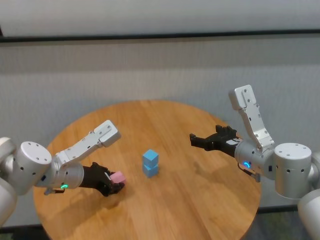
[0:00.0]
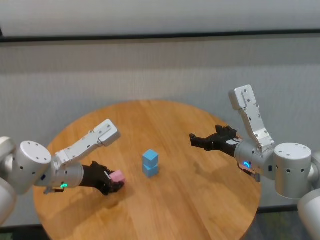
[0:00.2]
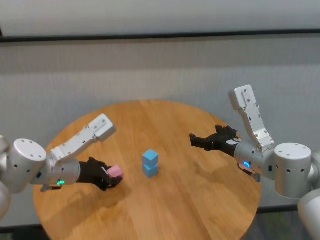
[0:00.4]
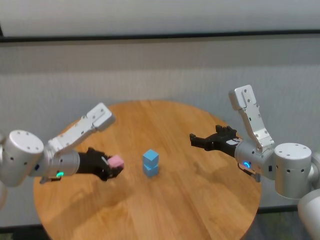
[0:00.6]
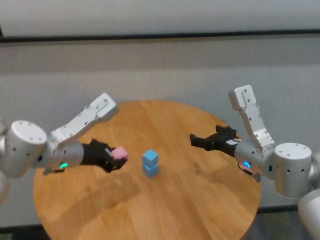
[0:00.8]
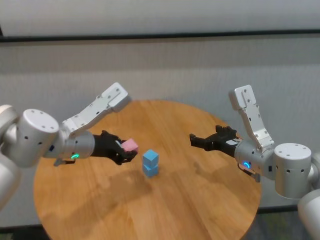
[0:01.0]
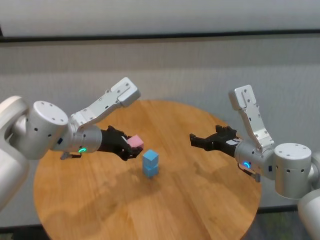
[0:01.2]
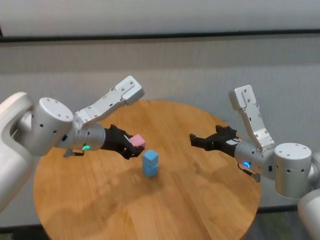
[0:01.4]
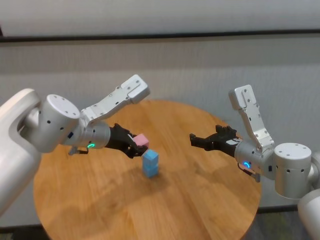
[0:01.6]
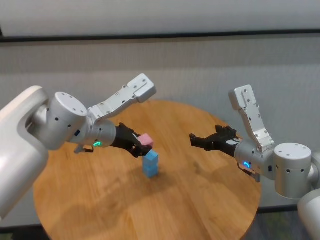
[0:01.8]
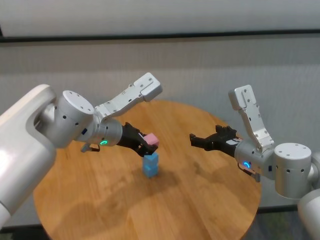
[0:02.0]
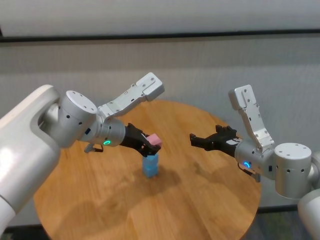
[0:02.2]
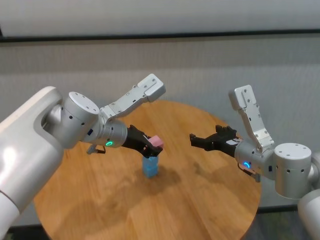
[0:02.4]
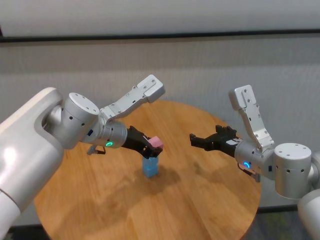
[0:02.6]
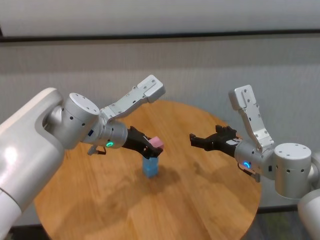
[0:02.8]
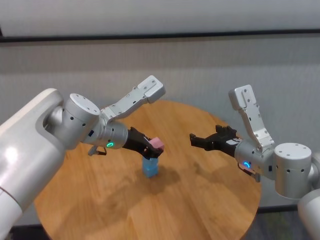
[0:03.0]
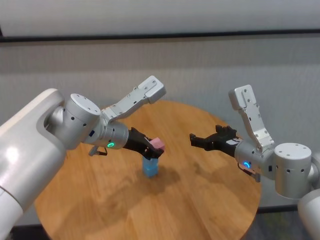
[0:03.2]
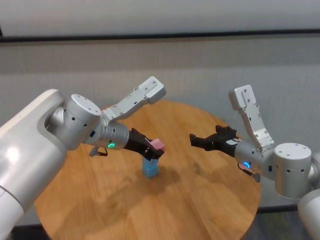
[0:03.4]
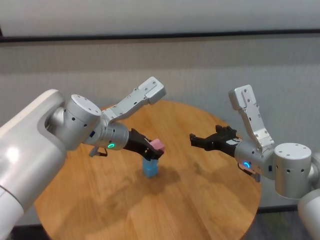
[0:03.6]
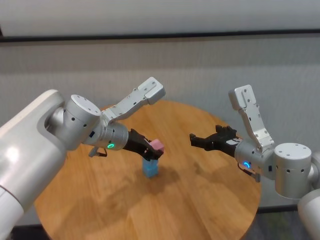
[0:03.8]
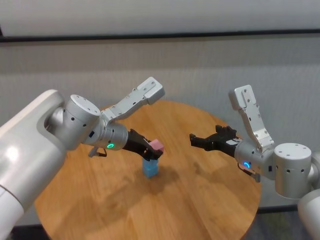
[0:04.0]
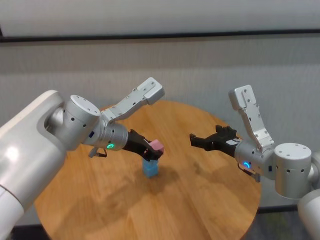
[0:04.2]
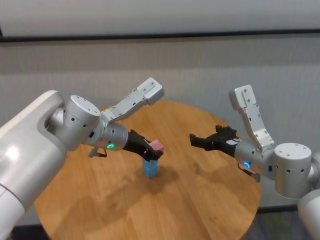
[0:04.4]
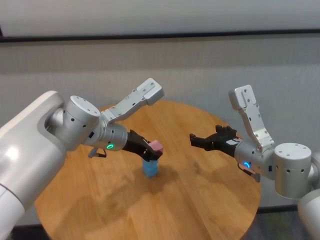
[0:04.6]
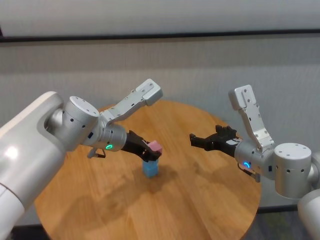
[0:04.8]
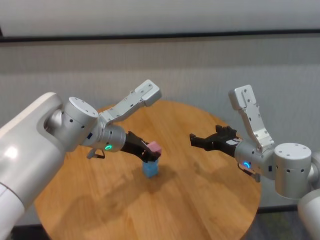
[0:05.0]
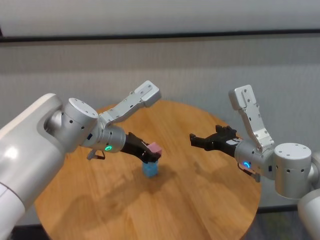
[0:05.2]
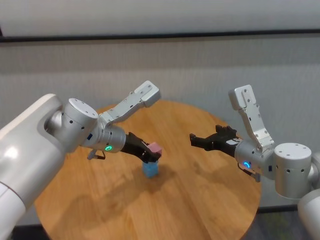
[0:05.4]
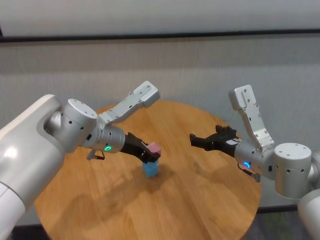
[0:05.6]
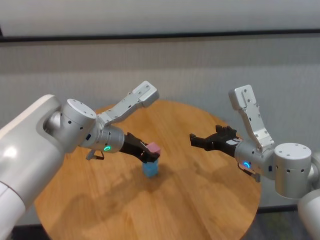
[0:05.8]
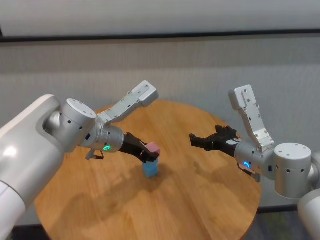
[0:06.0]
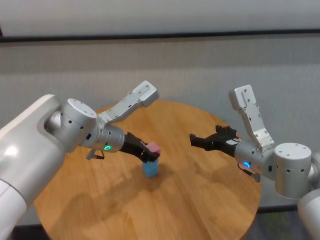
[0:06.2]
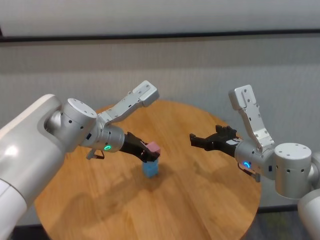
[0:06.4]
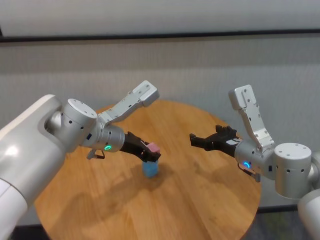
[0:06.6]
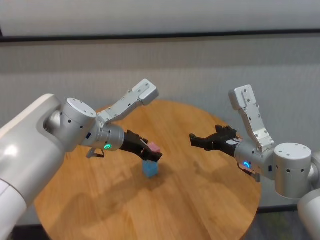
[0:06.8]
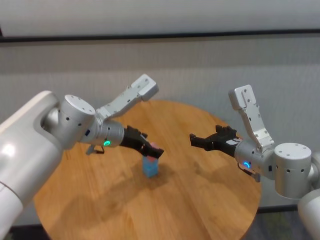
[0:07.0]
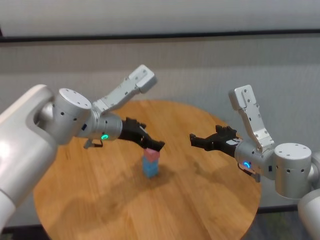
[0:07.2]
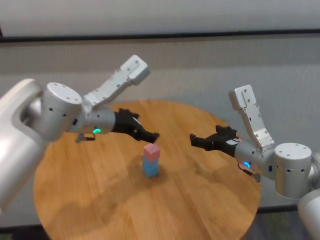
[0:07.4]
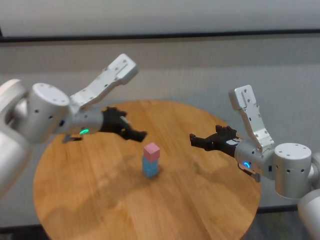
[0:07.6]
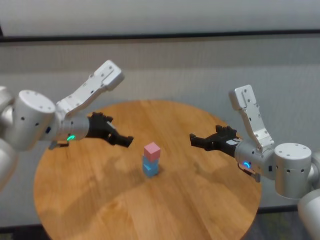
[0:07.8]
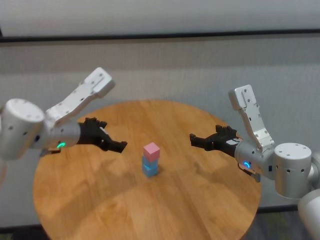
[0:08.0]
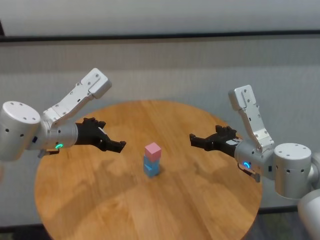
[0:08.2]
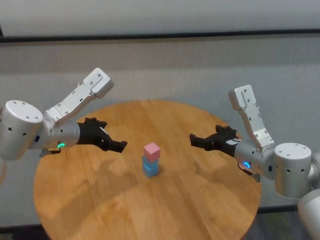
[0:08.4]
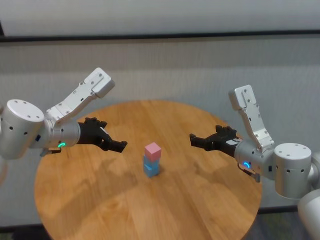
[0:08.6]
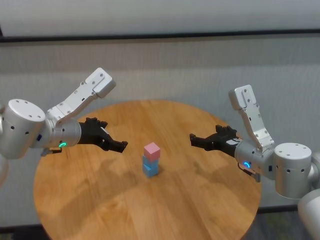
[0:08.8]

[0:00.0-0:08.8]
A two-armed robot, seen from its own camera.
Task of the whole recording: stack building blocks on the table.
Step, 0:00.0 to 0:06.8: Place the pink building block on the blue building blocks with left gripper.

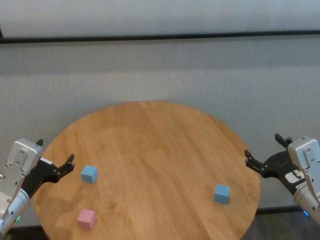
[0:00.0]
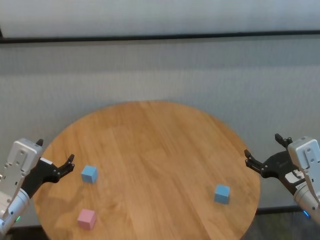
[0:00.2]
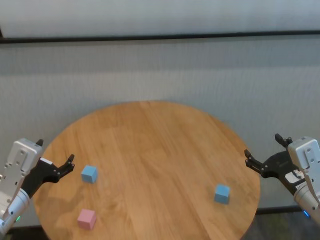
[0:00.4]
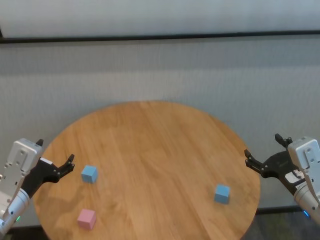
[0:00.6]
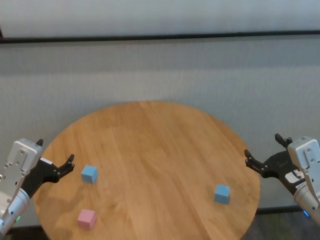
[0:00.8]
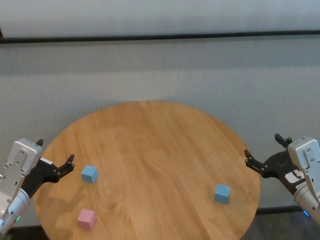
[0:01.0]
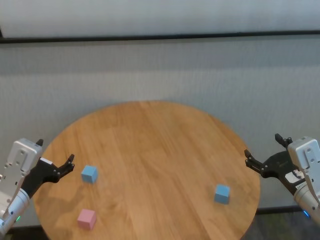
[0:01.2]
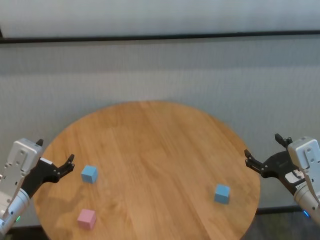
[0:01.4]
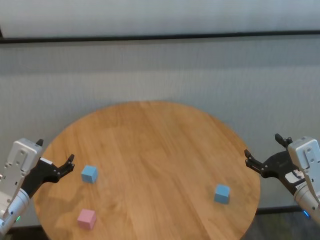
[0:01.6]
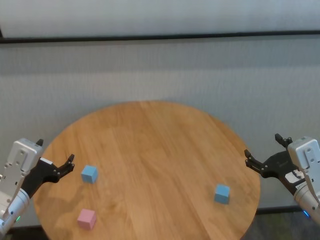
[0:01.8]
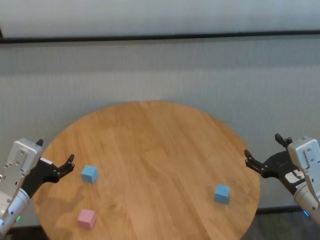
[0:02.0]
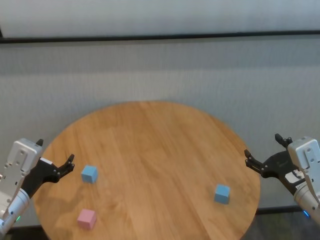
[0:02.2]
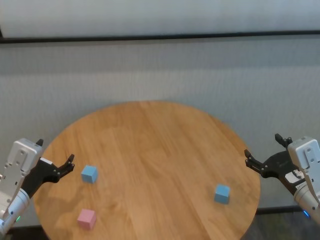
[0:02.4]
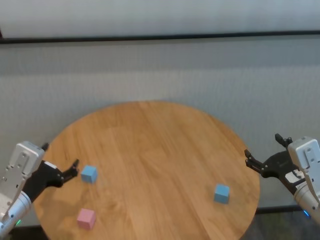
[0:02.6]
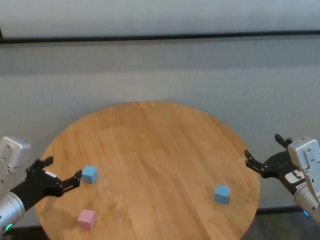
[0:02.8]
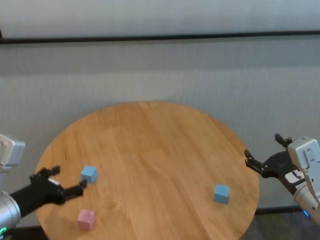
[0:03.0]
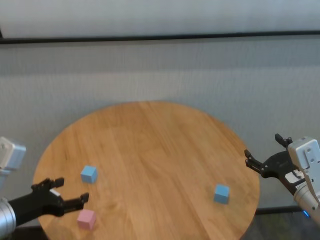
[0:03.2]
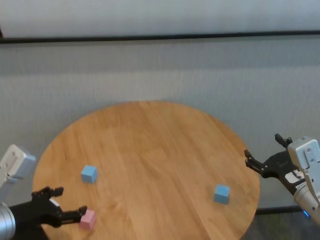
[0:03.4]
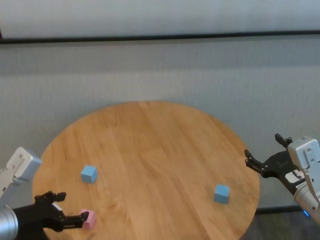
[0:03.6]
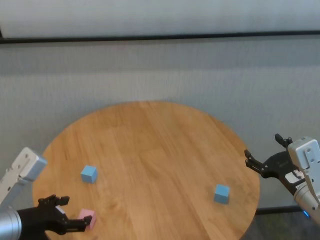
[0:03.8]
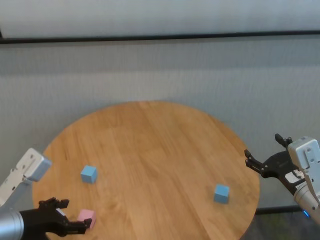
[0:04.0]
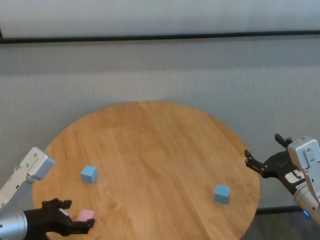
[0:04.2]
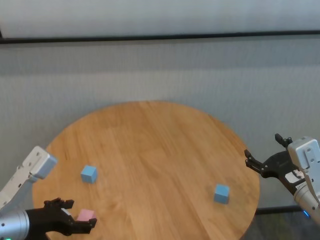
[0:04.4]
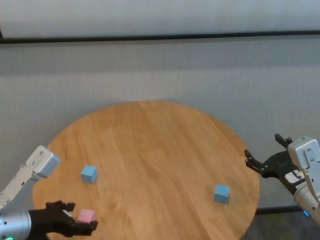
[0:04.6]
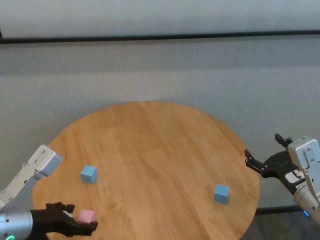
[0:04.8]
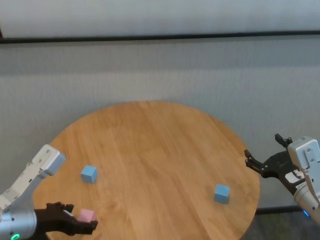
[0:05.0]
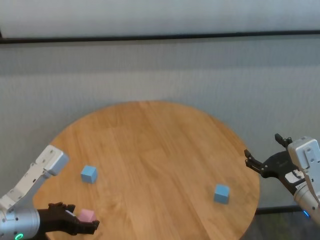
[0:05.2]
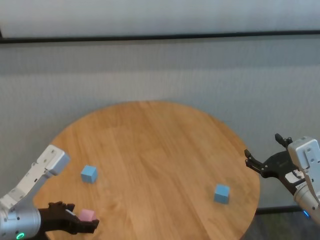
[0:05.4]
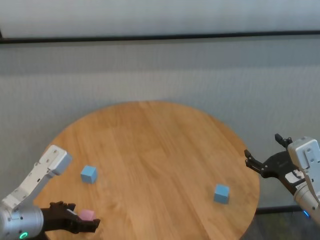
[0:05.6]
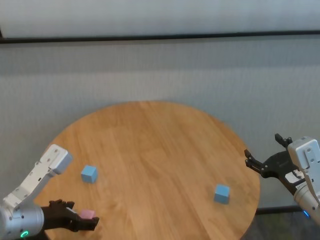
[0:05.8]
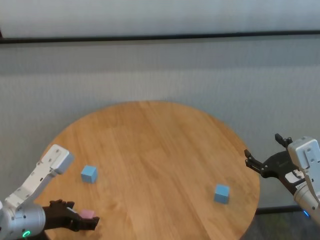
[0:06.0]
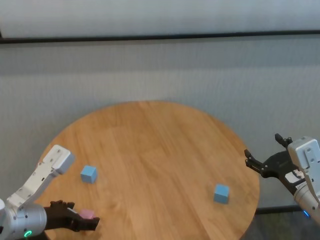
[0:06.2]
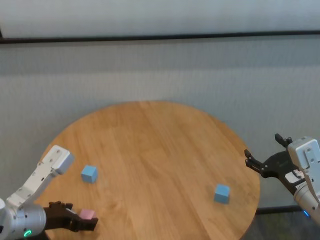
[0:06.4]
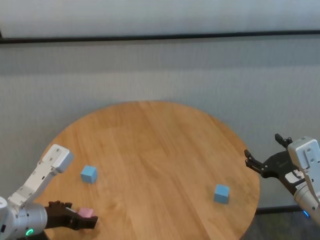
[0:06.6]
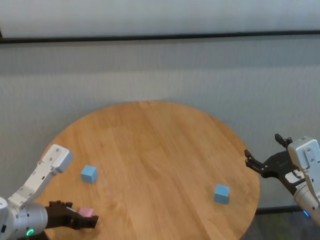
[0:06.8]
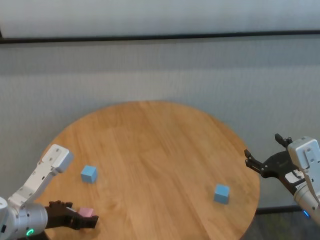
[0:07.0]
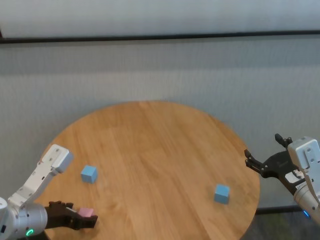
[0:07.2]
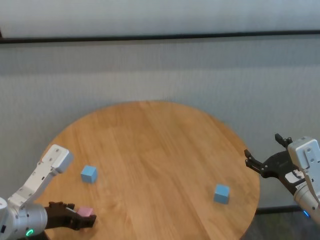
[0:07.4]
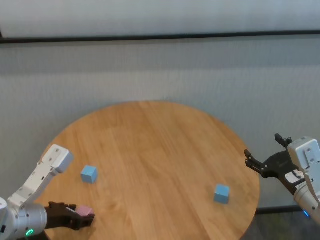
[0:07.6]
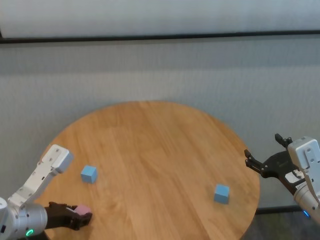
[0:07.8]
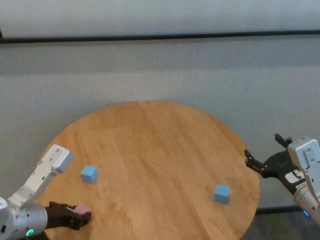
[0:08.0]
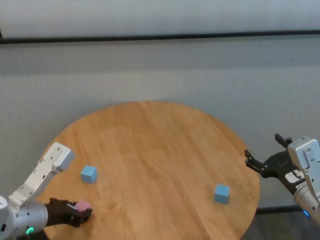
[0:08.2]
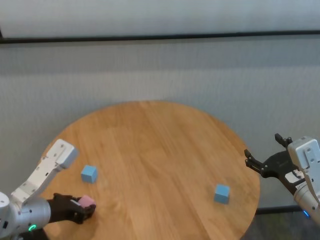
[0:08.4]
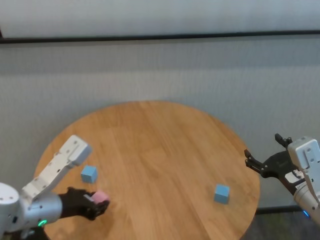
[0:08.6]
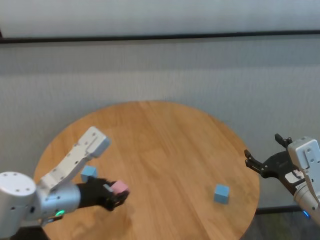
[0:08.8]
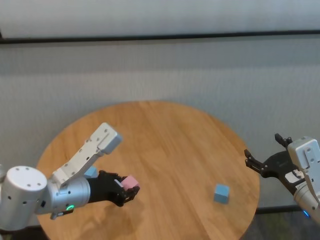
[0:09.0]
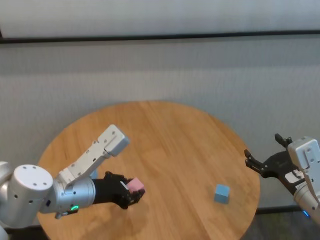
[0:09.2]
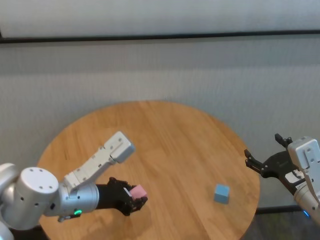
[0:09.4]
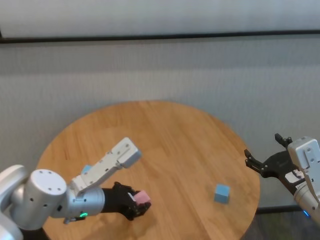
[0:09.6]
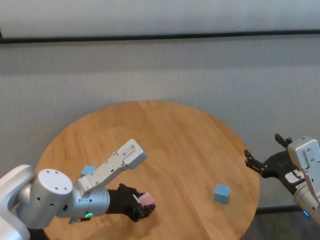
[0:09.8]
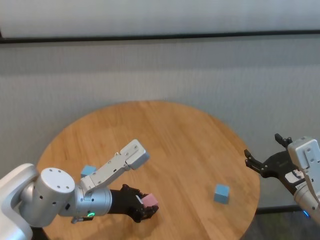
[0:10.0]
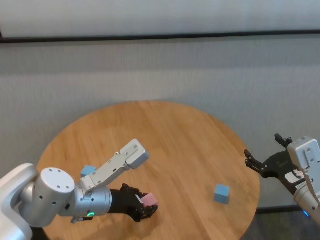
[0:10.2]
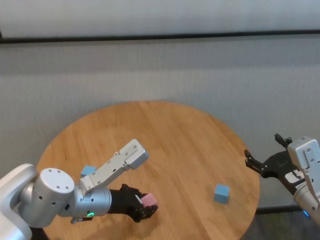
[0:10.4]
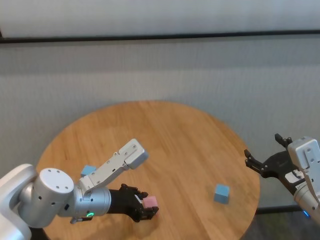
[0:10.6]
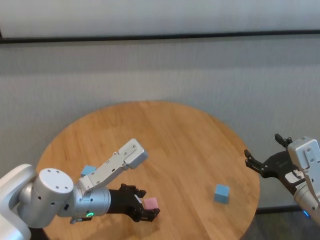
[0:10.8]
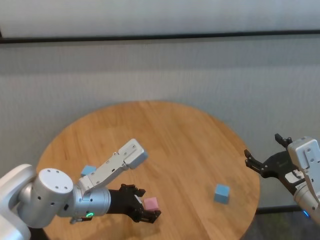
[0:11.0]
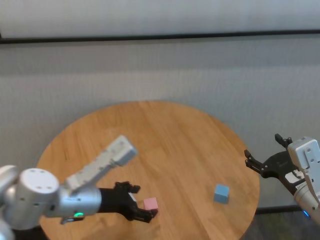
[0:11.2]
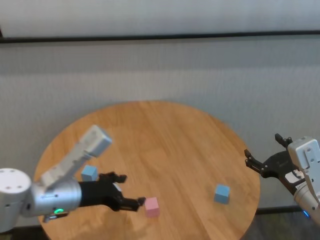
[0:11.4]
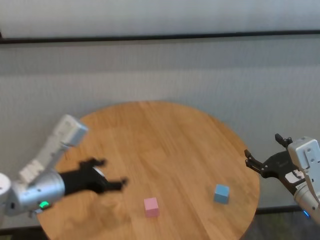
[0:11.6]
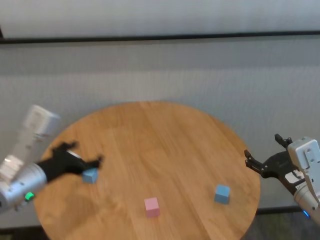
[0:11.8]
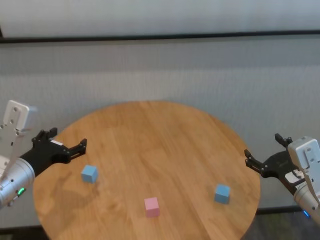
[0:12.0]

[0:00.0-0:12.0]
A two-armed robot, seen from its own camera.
Task of the whole recording: stack building blocks on the table.
Step, 0:00.0 to 0:07.8: Grasp the pink building block with left gripper.
Step, 0:08.0 to 0:10.8: Place the pink building block in the center of table with left gripper.

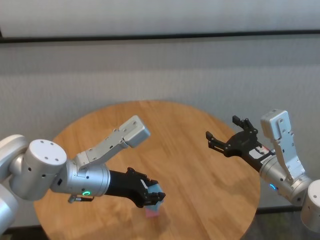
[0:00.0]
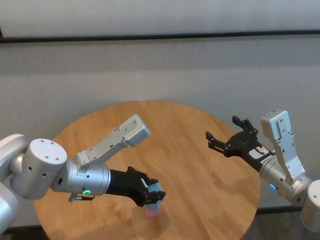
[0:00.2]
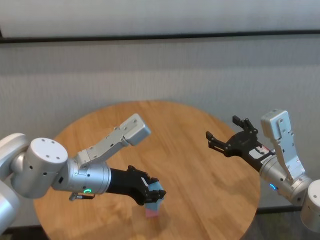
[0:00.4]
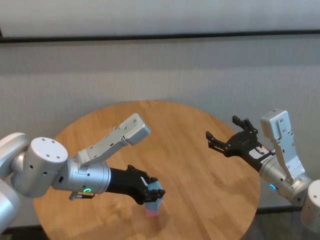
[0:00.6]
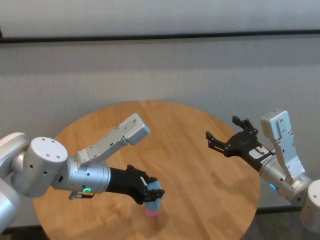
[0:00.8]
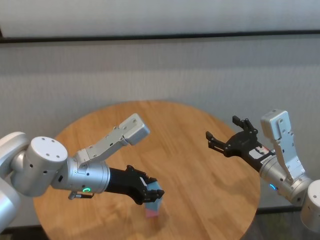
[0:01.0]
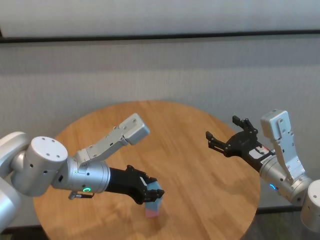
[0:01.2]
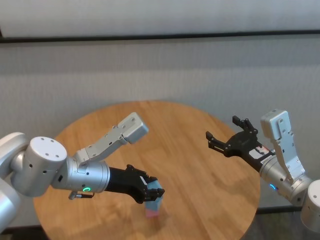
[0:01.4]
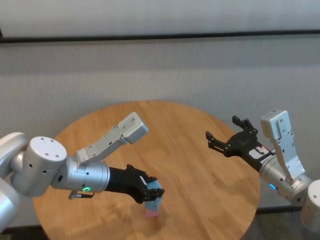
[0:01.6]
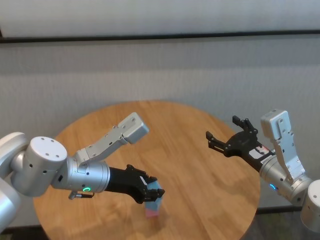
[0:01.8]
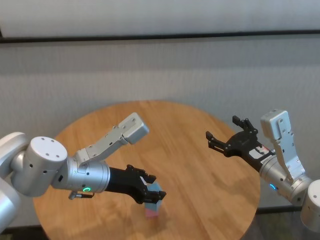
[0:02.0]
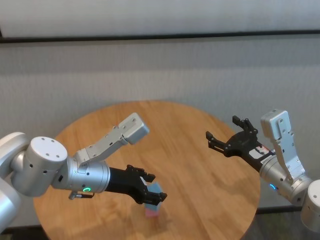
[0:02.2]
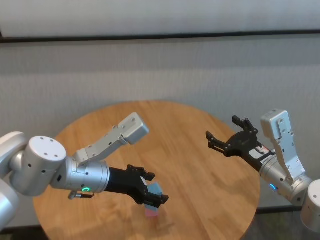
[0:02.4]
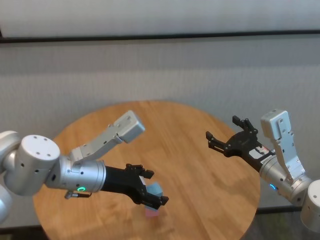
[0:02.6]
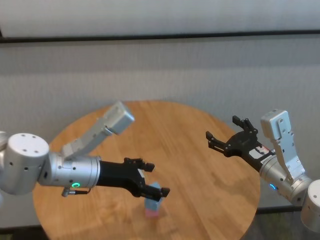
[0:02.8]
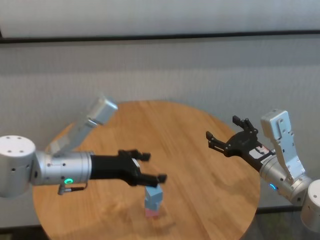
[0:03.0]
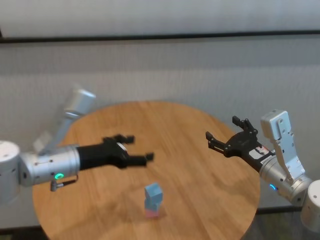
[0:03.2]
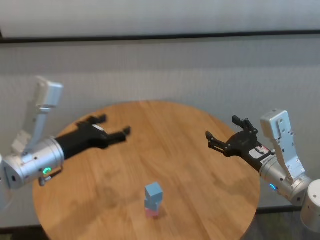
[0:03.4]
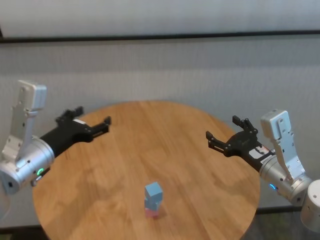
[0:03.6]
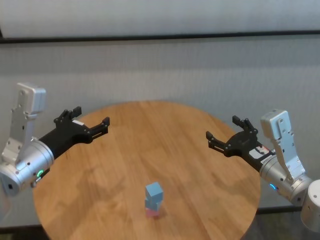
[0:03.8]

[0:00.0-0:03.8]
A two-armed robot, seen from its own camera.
Task of the whole recording: stack building blocks on the table.
Step, 0:00.0 to 0:02.2: Place the blue building block on the blue building blocks with left gripper.
